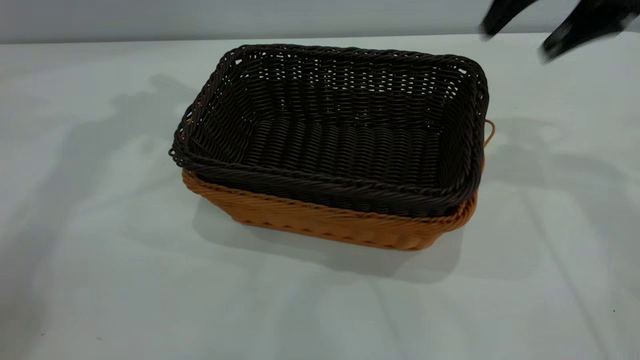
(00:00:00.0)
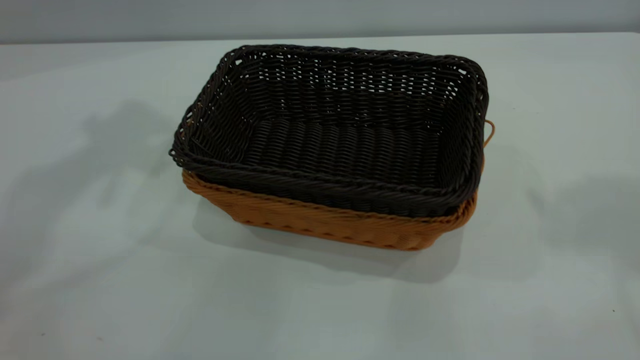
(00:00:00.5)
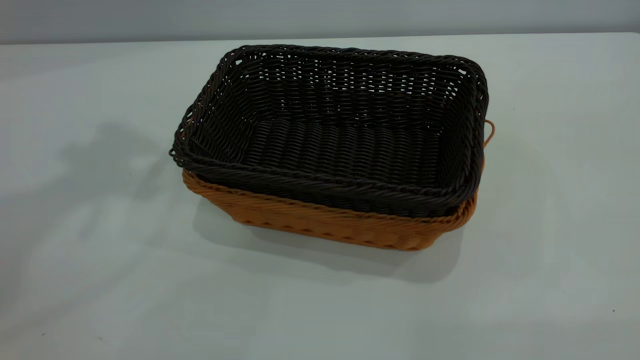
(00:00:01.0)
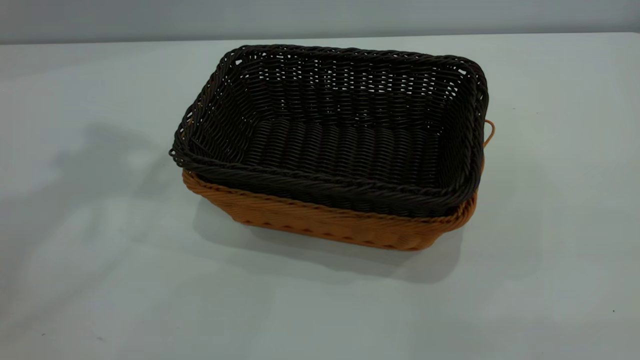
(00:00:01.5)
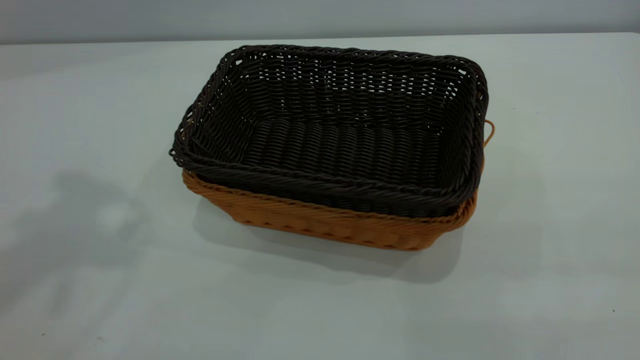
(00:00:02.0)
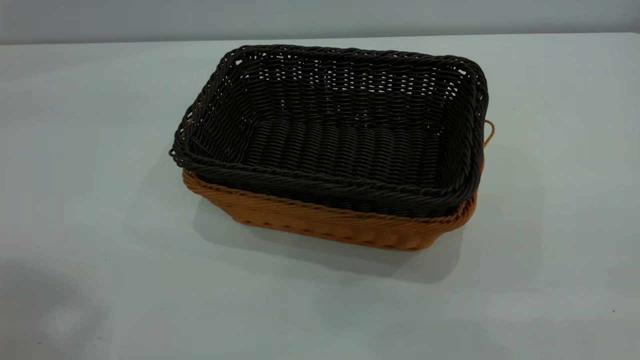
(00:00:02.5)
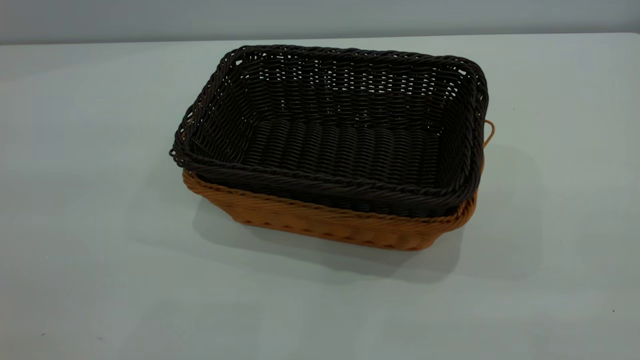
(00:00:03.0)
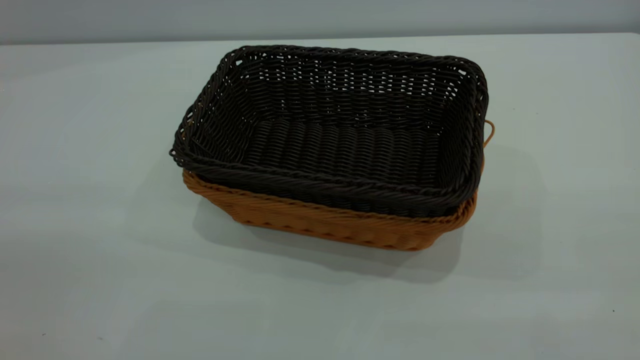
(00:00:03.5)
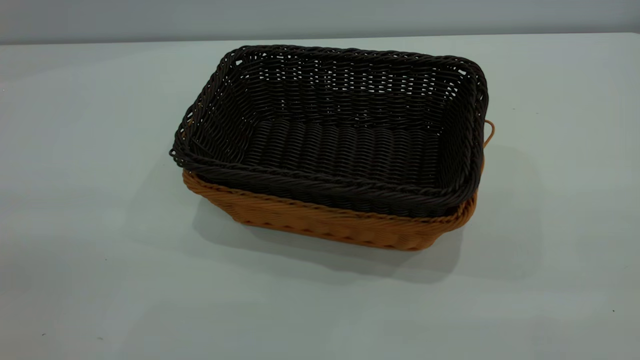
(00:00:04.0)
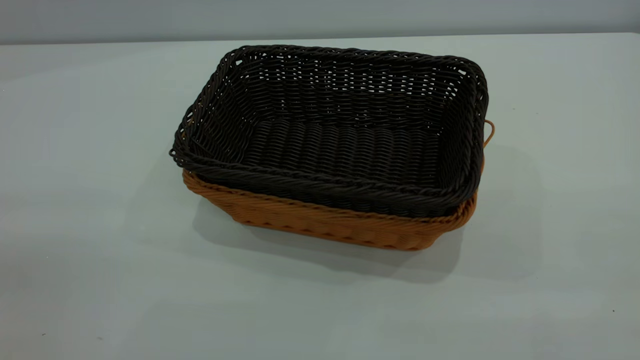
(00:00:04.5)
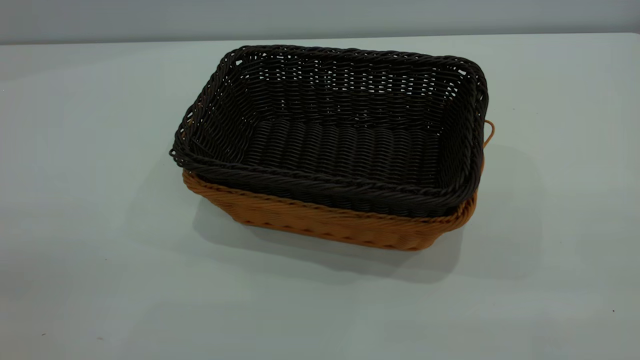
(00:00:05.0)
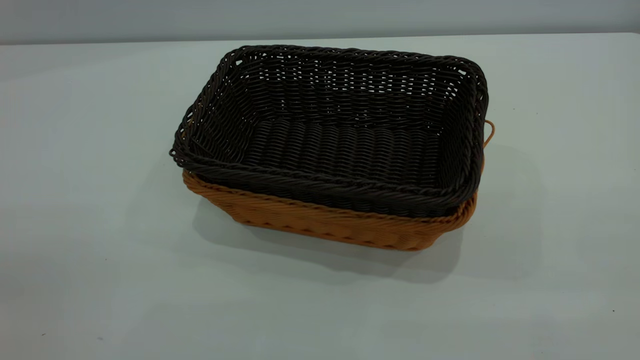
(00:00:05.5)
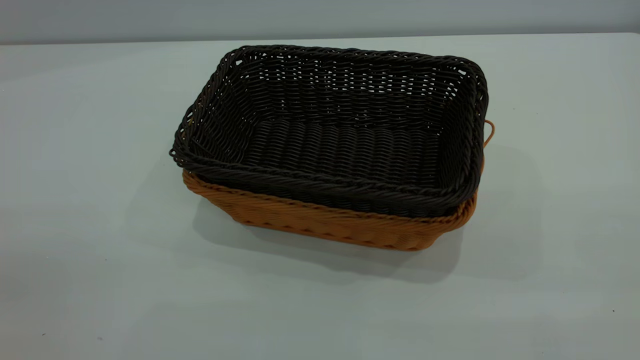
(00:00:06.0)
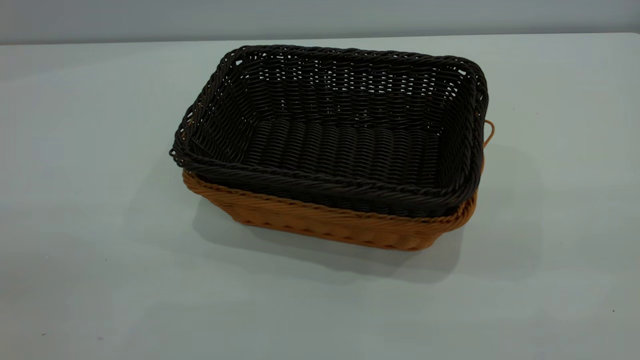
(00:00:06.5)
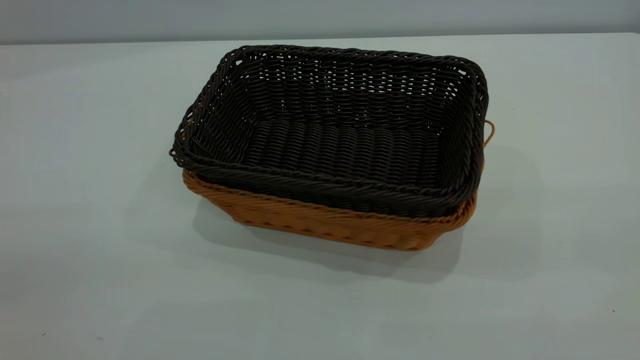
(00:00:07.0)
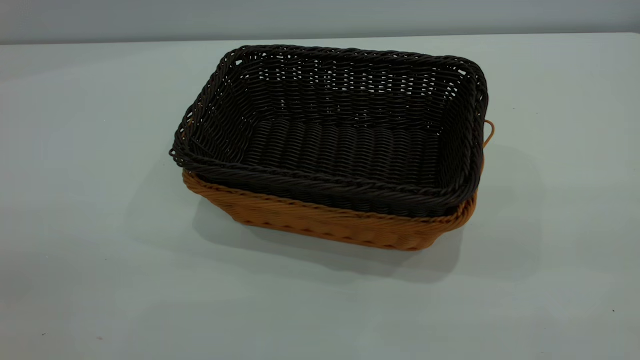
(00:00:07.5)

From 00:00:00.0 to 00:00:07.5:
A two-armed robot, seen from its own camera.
Task of the whole recording: the left gripper grasp the brown basket and place it in the center of the table, the right gripper grasp the black basket and place it inside the brown one.
From 00:00:00.0 to 00:00:02.0: The right gripper is displaced backward by some 40 cm.
